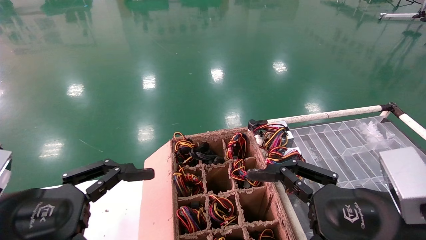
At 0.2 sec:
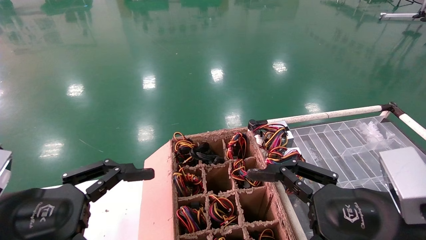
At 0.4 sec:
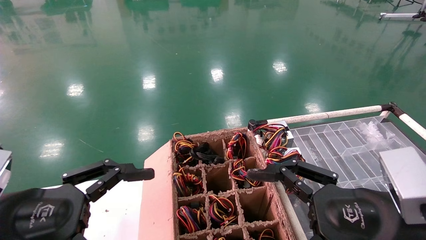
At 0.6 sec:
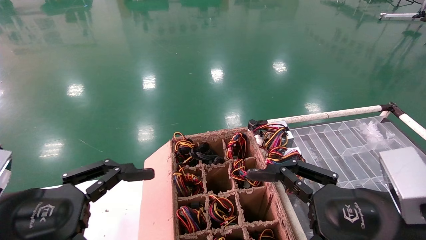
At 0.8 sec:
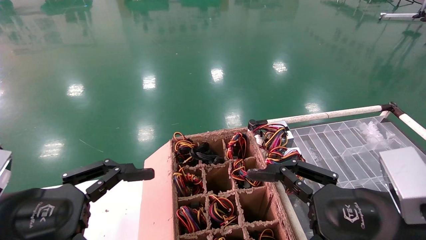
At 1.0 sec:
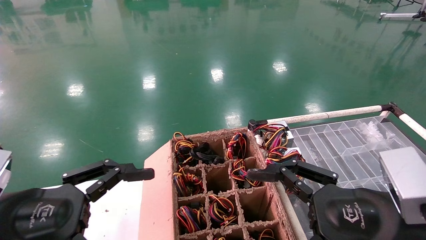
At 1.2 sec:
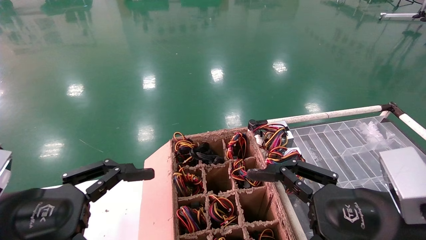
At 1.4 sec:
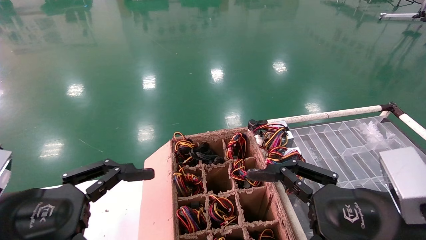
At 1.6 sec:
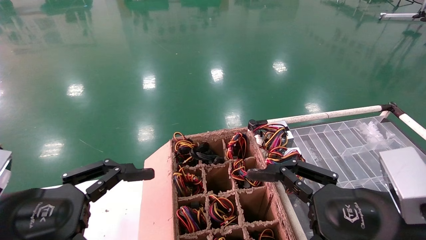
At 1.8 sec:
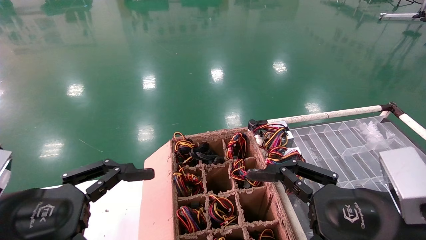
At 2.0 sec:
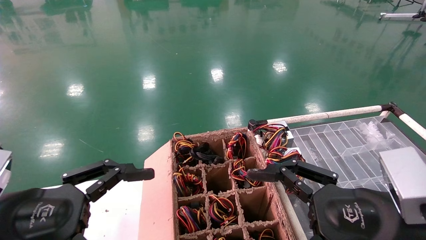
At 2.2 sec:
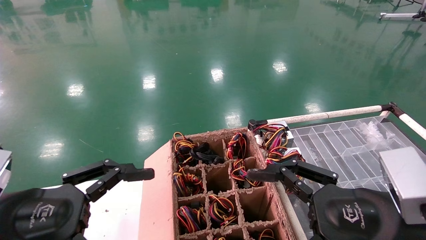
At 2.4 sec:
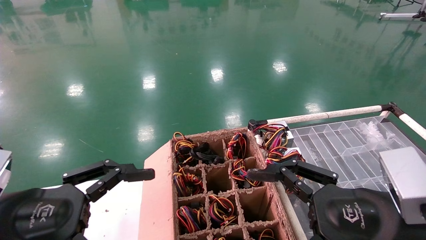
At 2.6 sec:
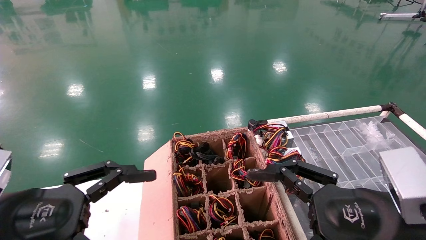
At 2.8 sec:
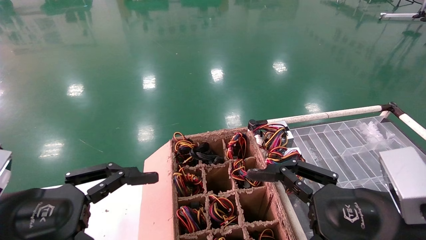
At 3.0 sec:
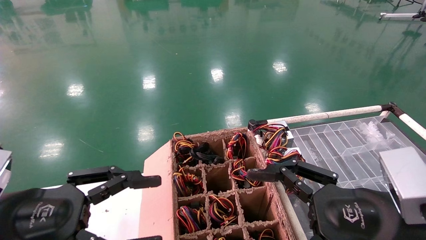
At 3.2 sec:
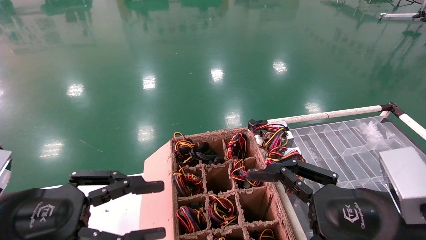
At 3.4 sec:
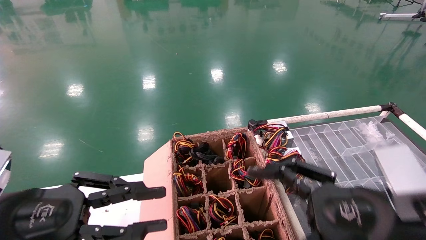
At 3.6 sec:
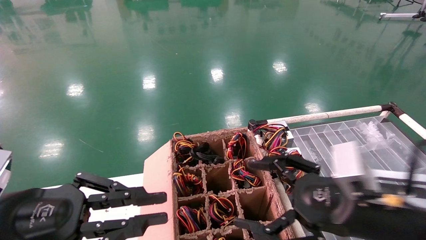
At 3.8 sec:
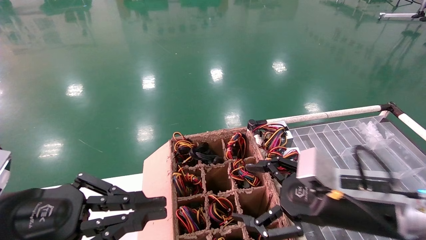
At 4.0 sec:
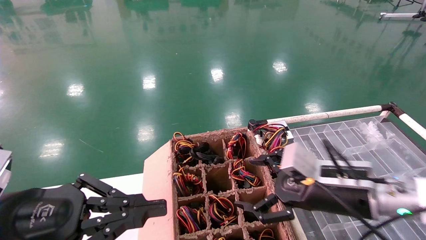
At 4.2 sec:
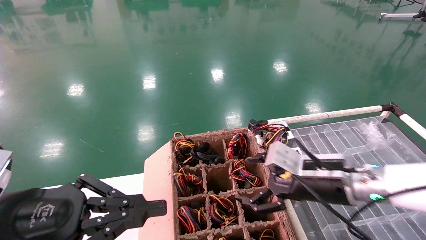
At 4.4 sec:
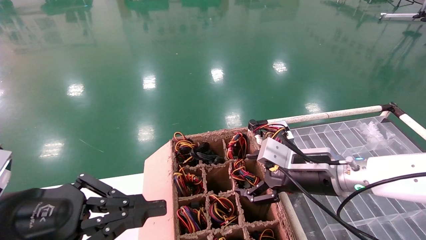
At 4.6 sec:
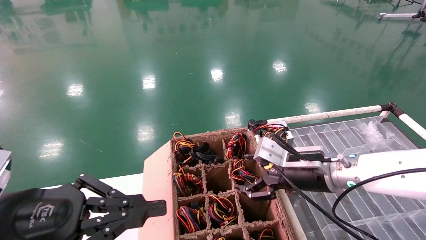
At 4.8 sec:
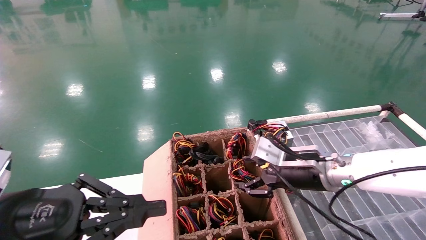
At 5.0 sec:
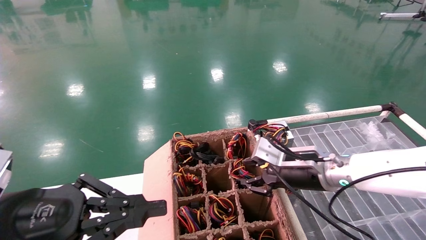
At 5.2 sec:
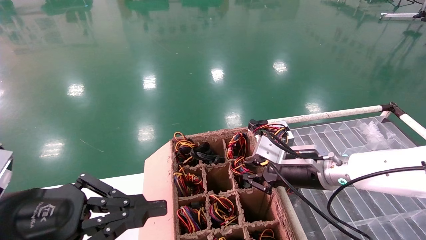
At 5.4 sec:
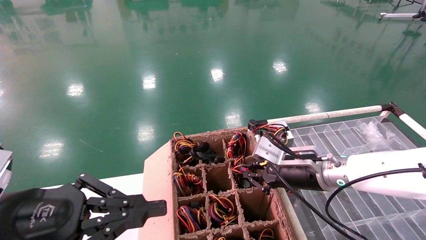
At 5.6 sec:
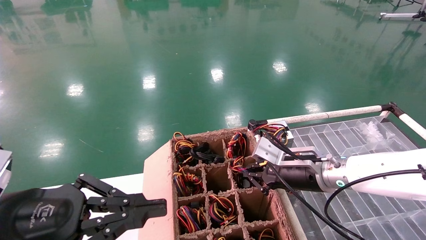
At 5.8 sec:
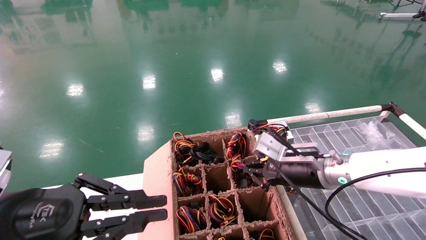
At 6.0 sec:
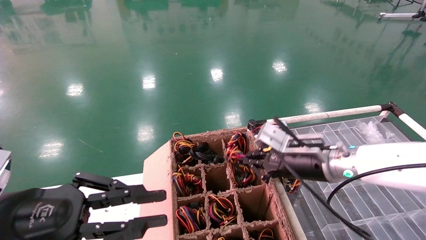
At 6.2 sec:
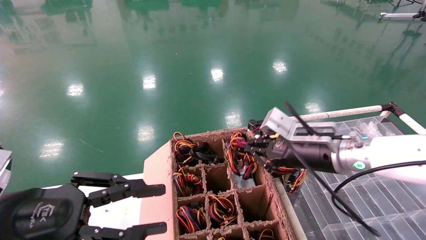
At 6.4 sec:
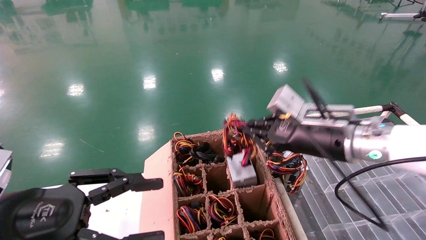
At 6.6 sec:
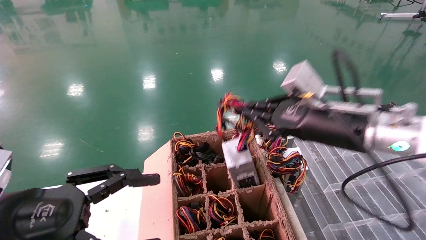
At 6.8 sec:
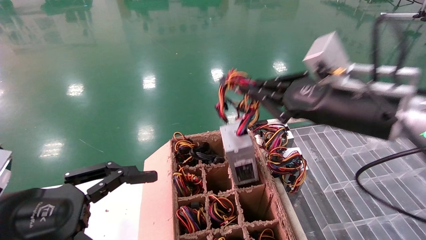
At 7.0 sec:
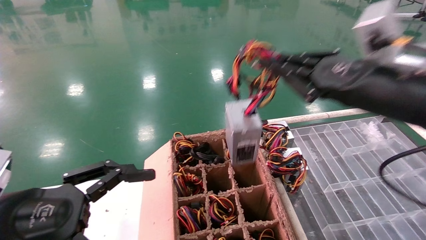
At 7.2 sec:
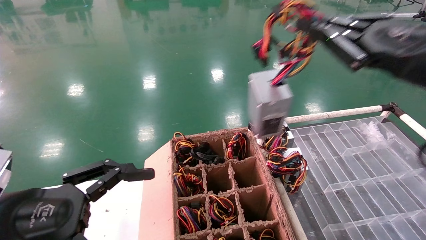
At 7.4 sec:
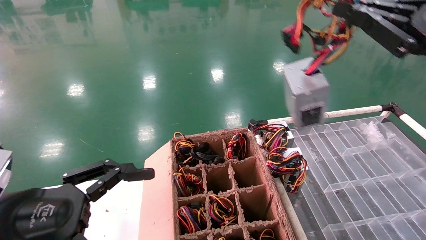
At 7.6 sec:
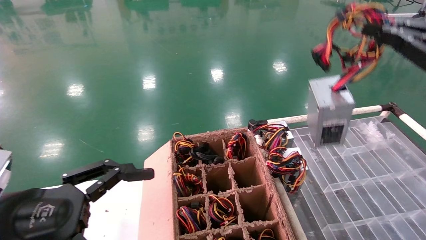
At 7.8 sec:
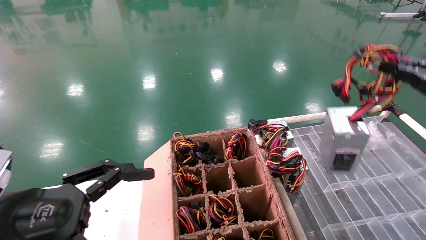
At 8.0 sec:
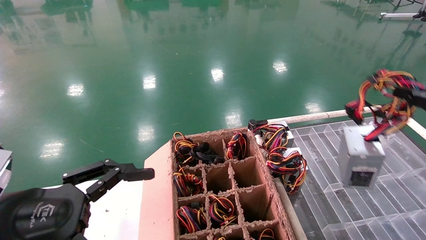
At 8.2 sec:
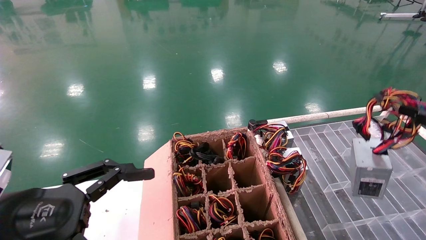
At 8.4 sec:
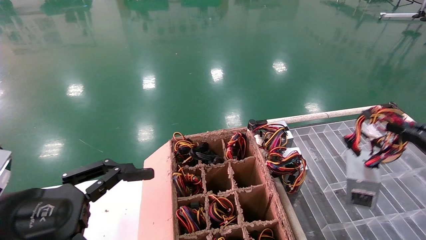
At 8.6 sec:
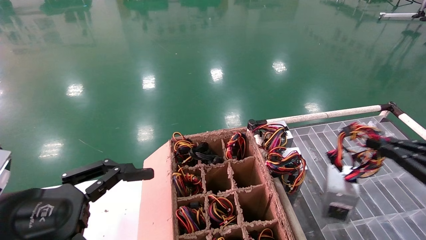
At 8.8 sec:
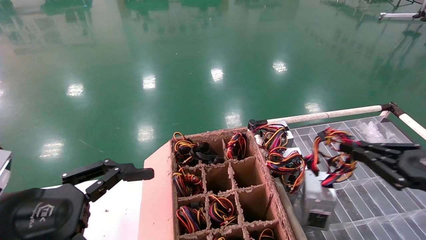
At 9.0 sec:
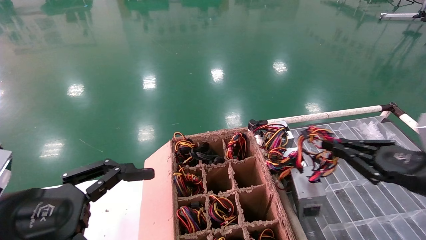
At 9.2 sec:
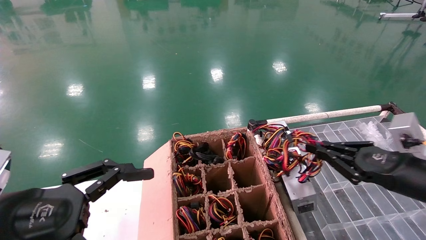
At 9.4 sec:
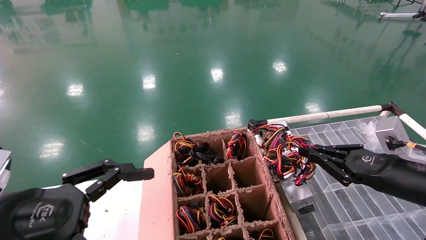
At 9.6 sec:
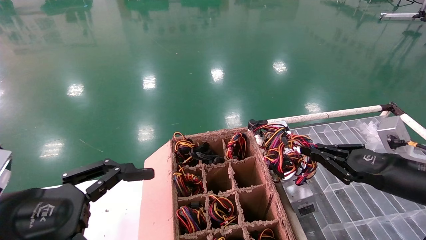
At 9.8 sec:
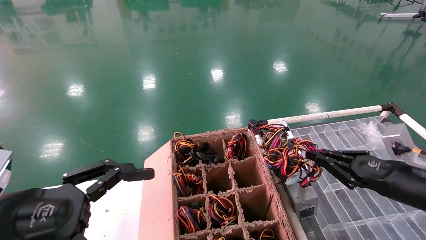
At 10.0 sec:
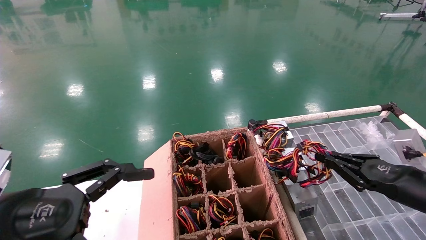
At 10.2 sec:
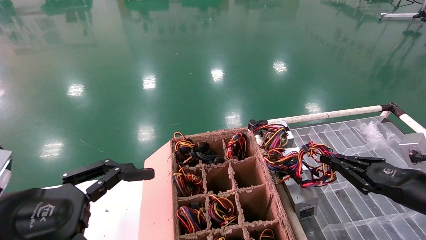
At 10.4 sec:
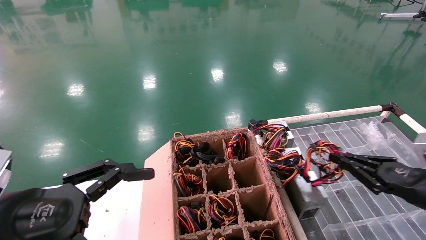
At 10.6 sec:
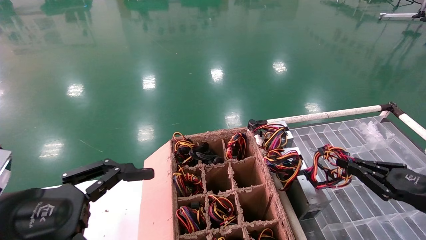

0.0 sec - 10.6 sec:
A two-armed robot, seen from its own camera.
Step, 4.2 sec - 5.8 sec: Grab and lift the power supply from the large box.
0.0 sec - 3.0 sec: Both grippers stay put.
3.0 sec - 4.6 sec: The right gripper travels forward by approximately 15 cm. The left gripper closes.
4.6 sec - 6.0 sec: The right gripper closes up.
6.0 sec - 7.6 sec: The right gripper moves to the right, backward and upward, about 30 cm. The left gripper opens up.
7.6 sec - 9.0 sec: The right gripper goes approximately 15 cm downward.
9.0 sec - 10.6 sec: The right gripper moves downward, approximately 5 cm.

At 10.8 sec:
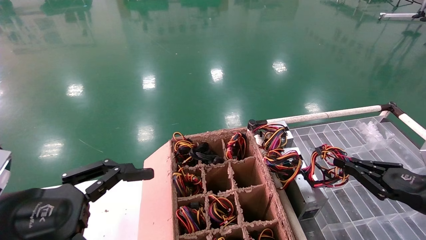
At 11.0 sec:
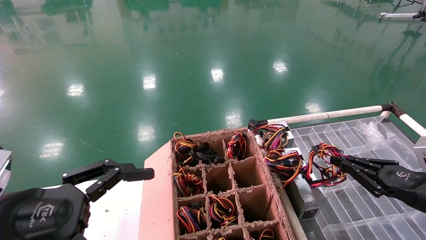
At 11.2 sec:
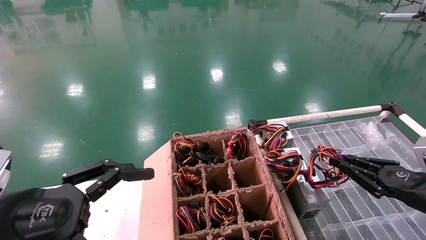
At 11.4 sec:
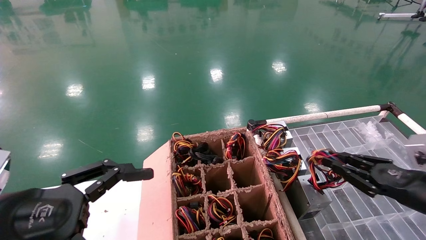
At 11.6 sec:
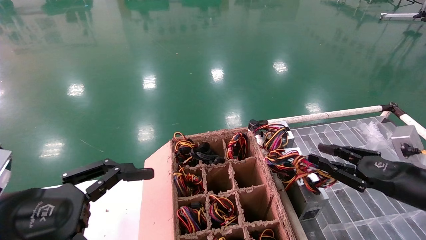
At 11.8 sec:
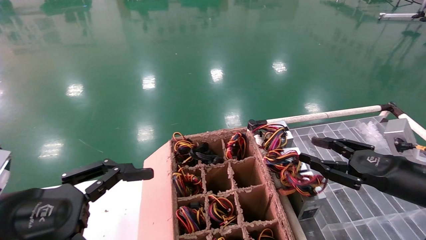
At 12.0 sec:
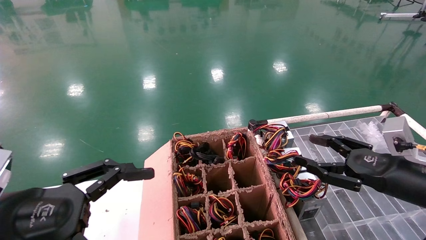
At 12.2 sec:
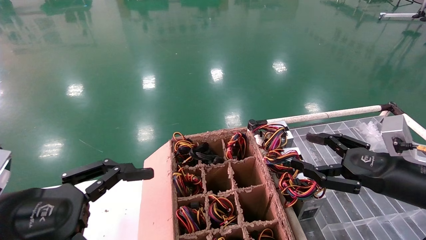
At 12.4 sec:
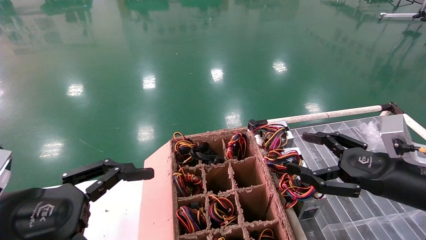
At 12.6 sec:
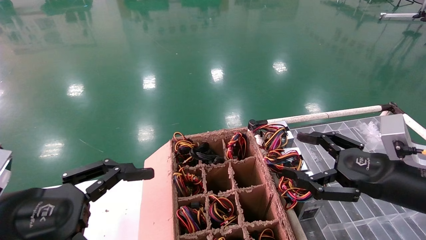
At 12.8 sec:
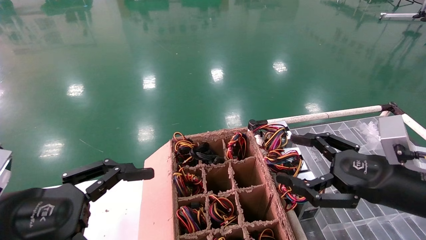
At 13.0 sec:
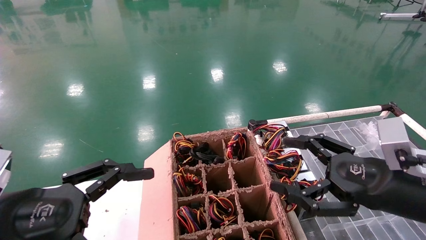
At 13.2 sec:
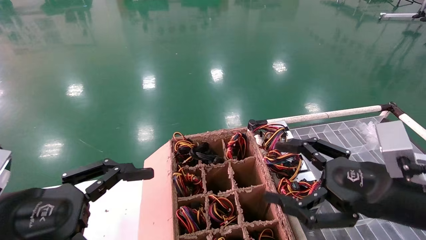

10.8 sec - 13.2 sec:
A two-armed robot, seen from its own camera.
10.8 sec - 12.0 sec: The right gripper moves to the left, approximately 5 cm, and opens.
12.0 sec - 13.2 sec: The right gripper is displaced to the left and backward by about 10 cm, and opens.
